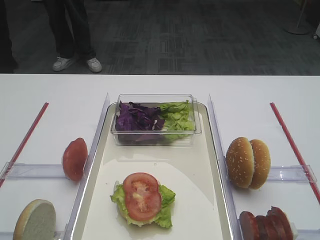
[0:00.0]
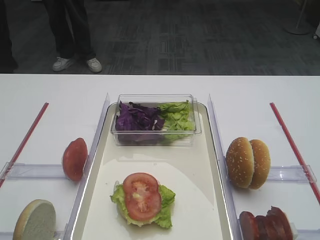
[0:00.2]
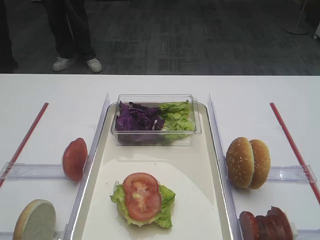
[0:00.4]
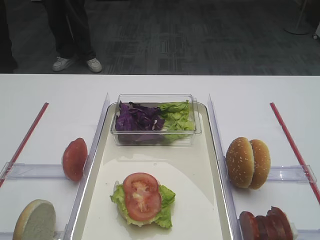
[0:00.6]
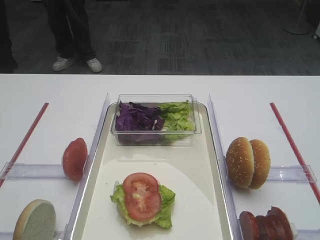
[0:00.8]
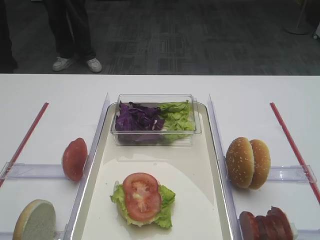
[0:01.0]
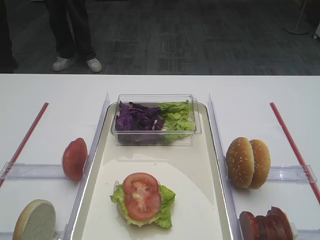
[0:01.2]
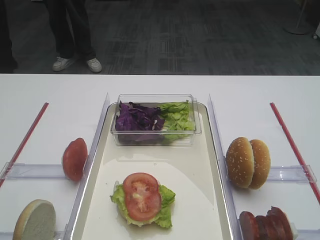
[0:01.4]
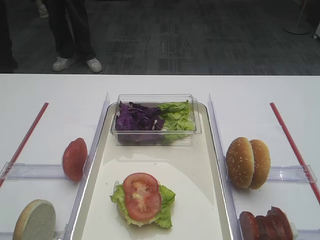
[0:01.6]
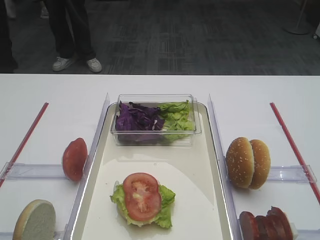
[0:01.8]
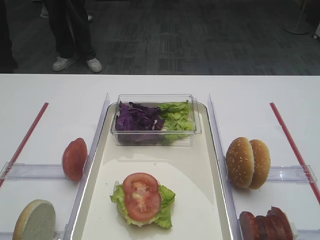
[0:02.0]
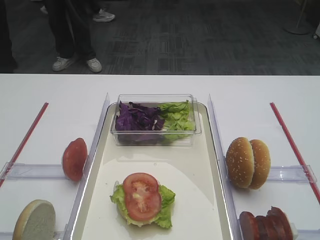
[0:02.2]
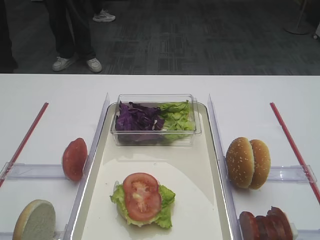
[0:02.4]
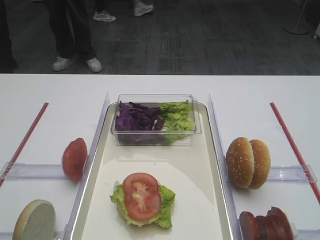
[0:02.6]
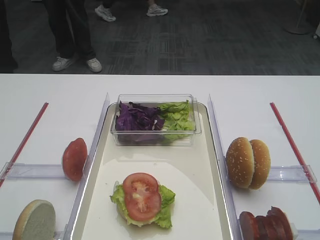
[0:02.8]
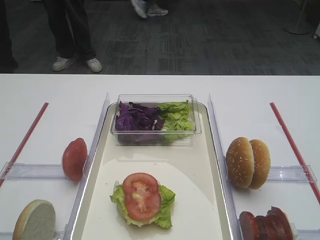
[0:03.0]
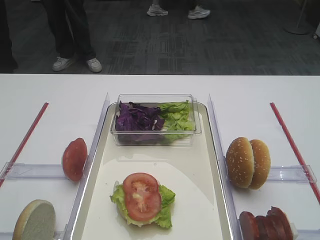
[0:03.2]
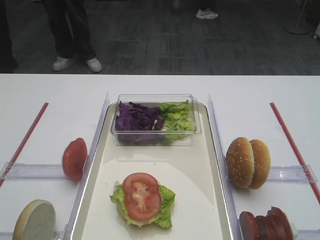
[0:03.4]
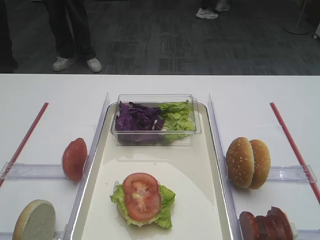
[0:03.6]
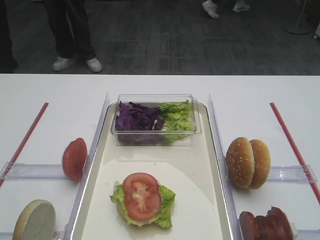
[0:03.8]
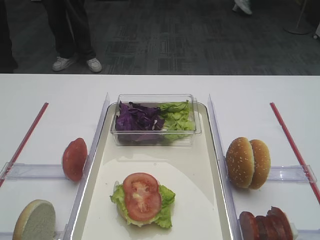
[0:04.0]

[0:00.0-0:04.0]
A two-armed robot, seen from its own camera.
1.4 to 4.0 s: The two grippers keep their place.

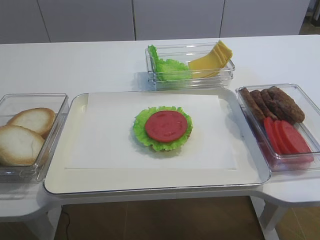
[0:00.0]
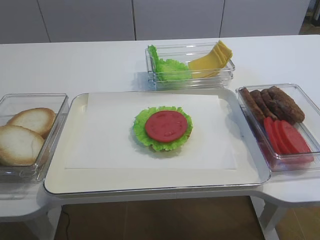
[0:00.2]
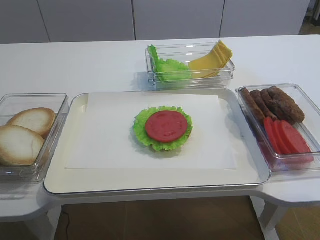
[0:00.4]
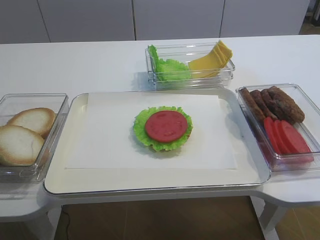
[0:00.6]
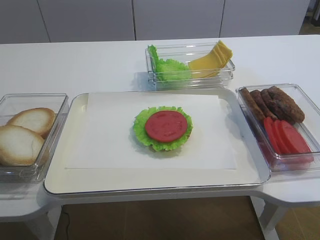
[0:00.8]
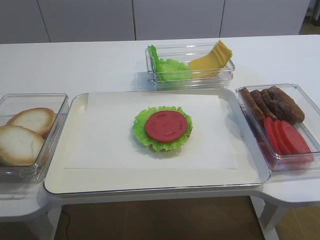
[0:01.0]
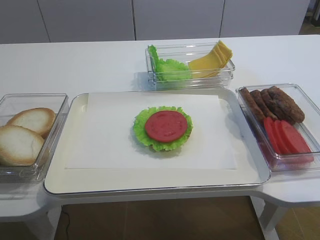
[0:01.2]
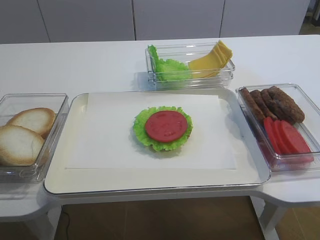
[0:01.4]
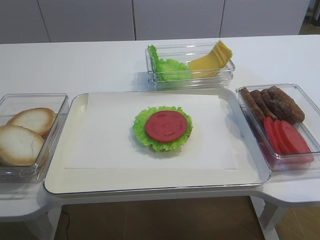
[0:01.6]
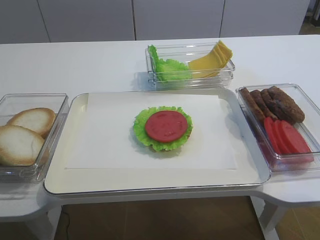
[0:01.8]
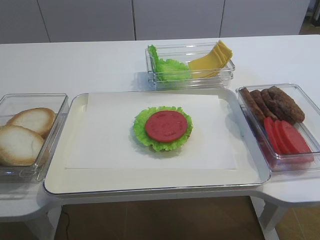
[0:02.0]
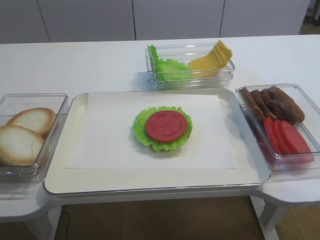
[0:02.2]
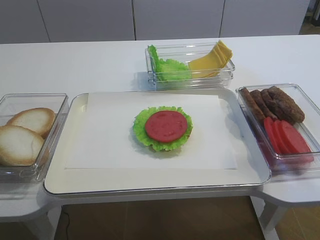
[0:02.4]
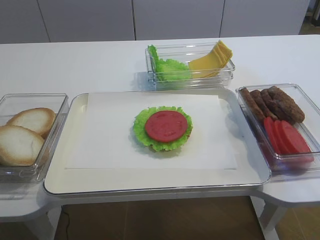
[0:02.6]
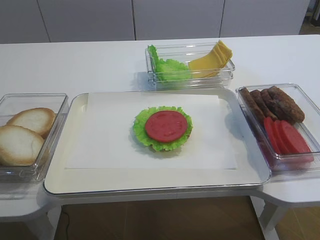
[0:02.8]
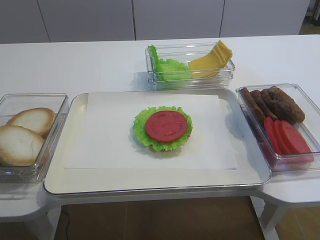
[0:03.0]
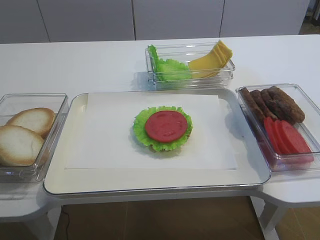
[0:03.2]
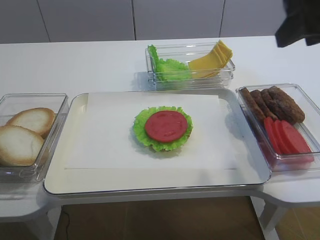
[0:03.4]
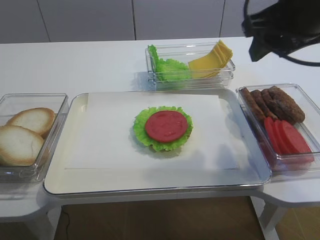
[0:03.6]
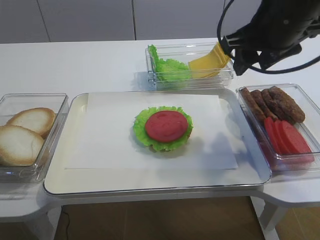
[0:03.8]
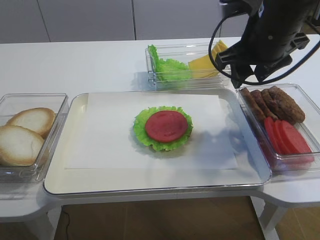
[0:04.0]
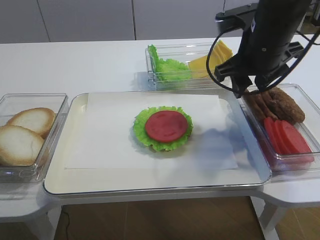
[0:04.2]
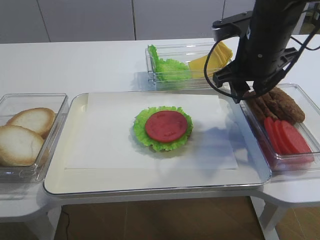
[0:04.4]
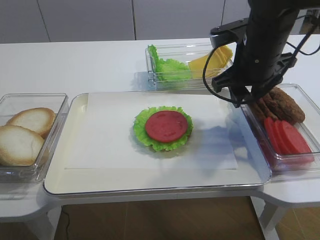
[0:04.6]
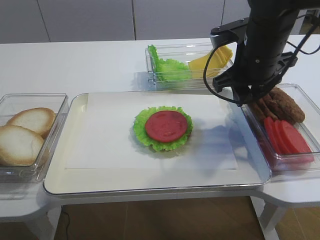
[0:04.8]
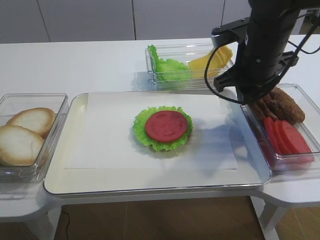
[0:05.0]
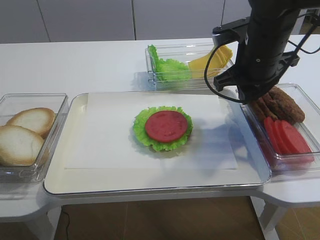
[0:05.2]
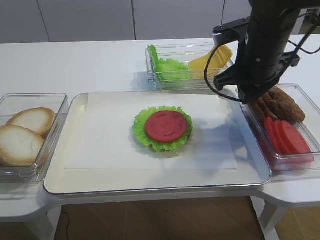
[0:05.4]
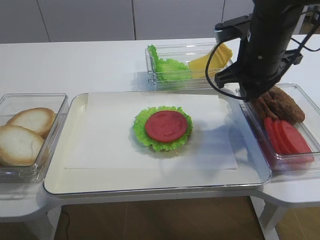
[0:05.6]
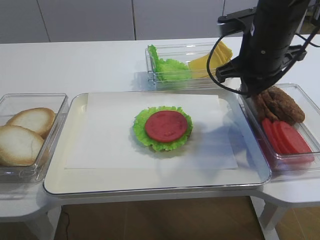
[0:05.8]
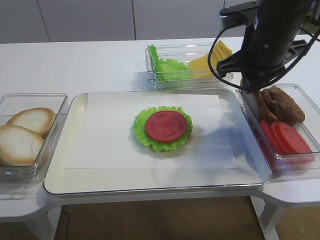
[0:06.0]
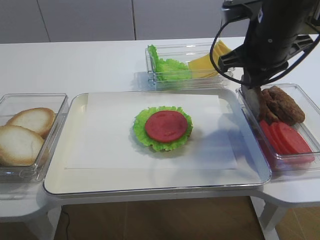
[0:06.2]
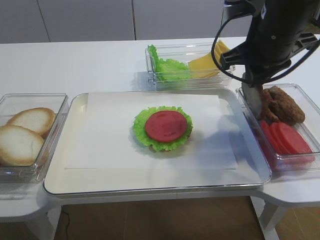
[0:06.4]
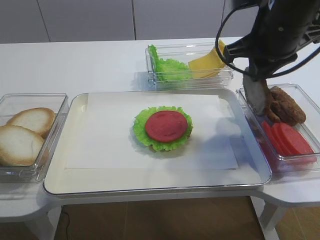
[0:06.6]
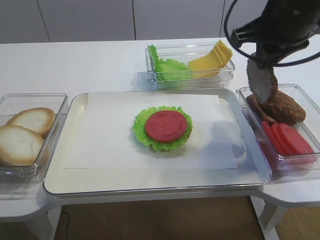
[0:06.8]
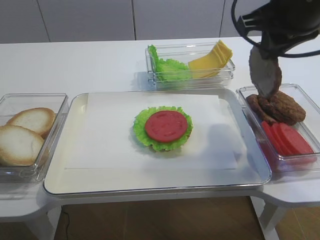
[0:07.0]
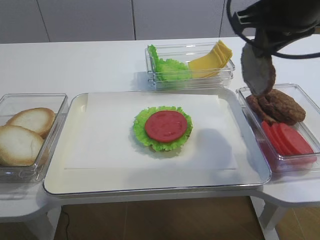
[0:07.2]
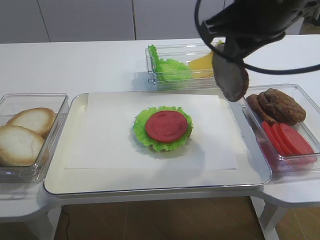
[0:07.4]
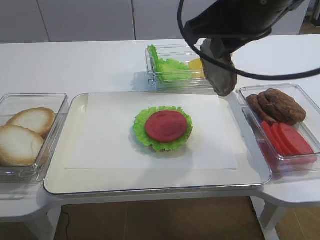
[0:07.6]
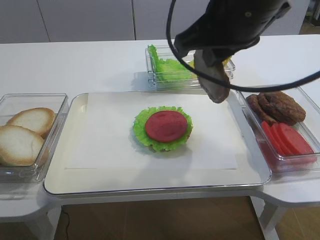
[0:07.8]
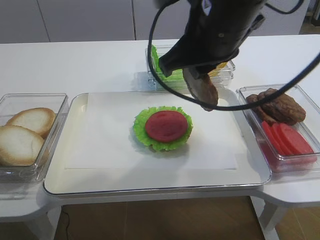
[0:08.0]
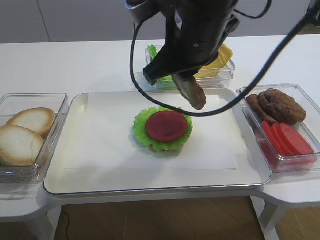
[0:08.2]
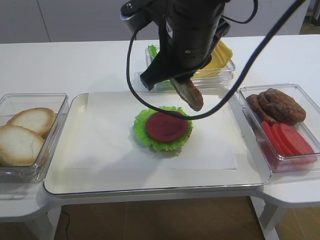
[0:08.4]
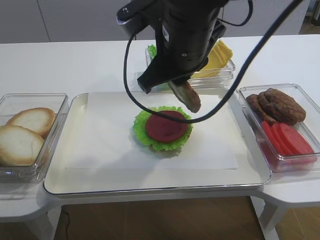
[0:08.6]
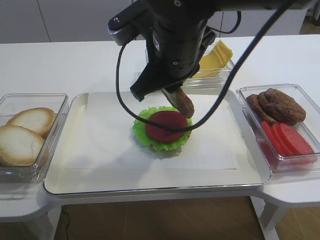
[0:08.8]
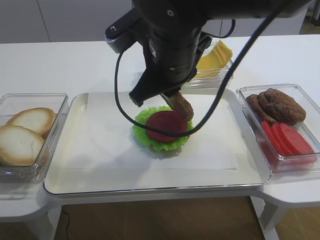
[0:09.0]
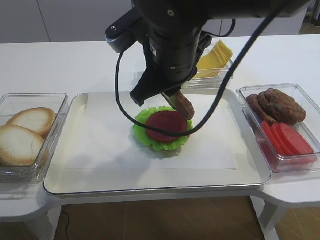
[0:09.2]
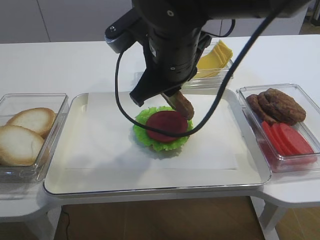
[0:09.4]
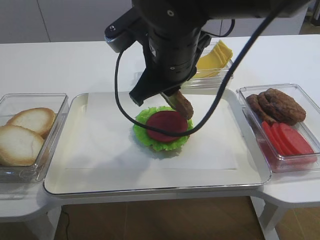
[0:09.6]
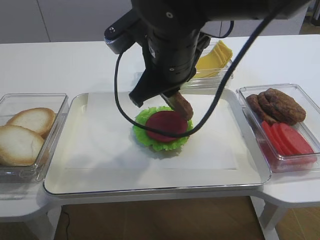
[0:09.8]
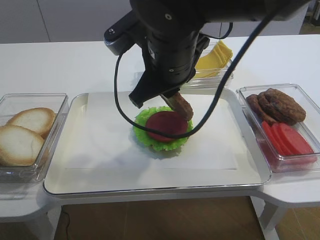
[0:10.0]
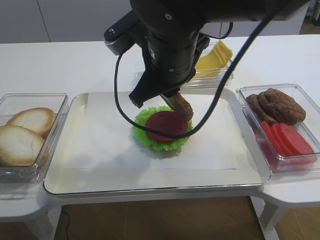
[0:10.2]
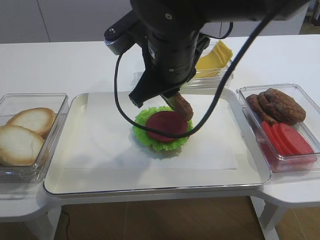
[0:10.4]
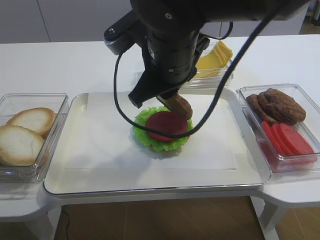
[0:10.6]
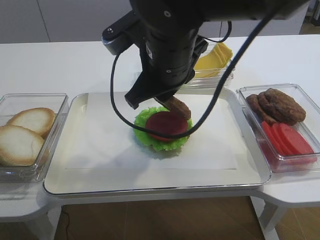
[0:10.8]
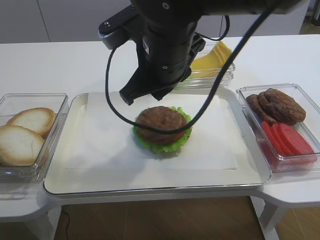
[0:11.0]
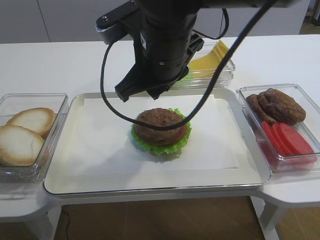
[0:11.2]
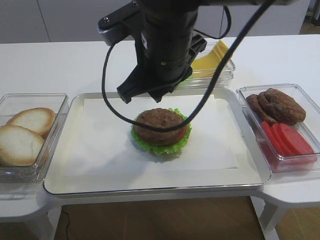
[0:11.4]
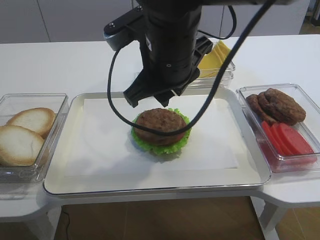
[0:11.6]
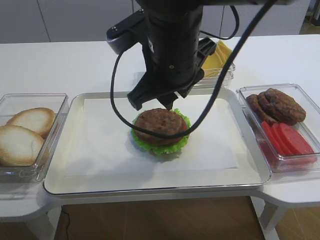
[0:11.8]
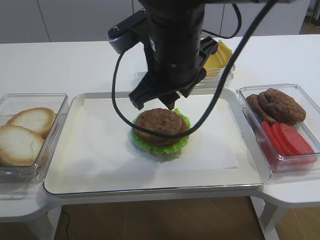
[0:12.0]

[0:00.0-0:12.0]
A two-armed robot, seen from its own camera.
Step, 0.0 to 7.2 s: Pick up the cutlet with the right gripper.
3.0 to 4.4 s: The right gripper goes some 25 cm forward, downward and to the left.
4.4 to 6.0 s: The right gripper closes its fingers.
6.0 to 7.6 s: The right gripper moves upward, backward and to the left, some 15 cm.
7.6 to 9.0 s: The right gripper is displaced to the left and downward by some 10 cm.
9.0 to 10.4 s: Both grippers stay about where they are.
10.4 to 12.0 s: The right gripper opens.

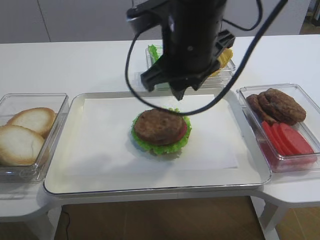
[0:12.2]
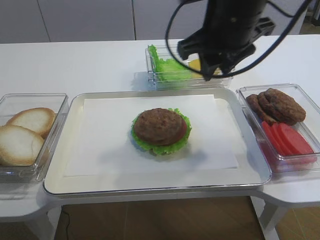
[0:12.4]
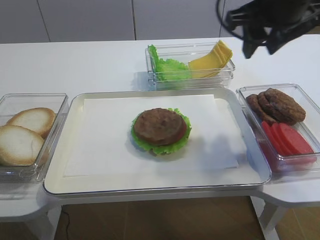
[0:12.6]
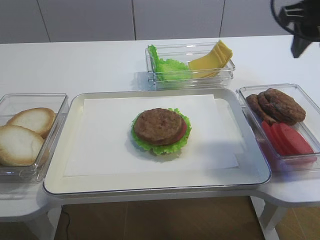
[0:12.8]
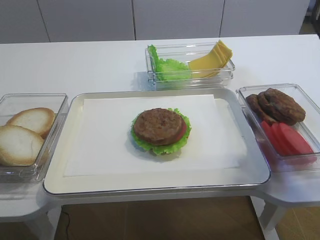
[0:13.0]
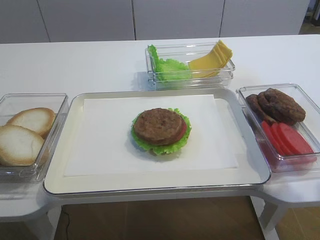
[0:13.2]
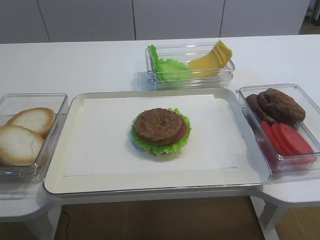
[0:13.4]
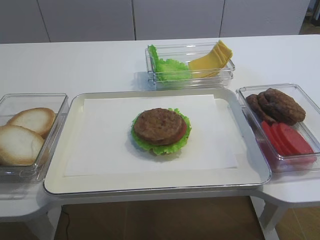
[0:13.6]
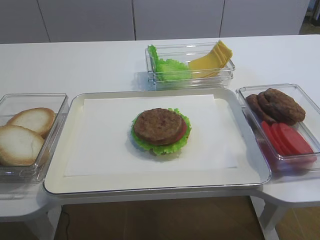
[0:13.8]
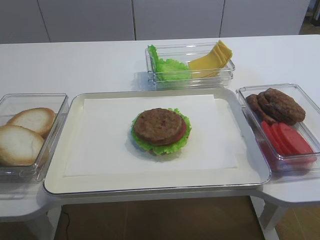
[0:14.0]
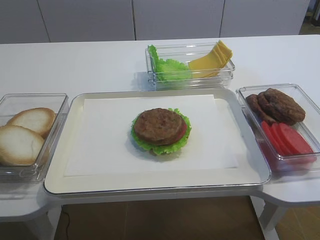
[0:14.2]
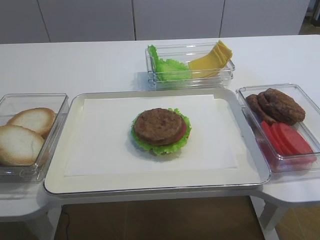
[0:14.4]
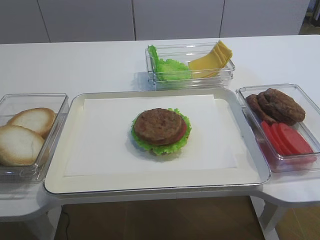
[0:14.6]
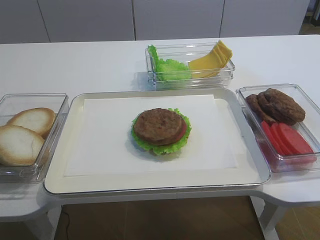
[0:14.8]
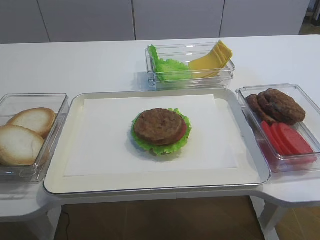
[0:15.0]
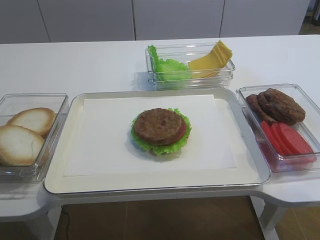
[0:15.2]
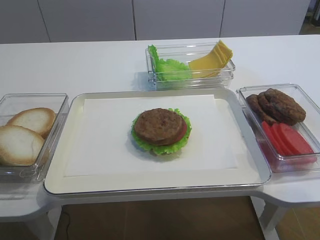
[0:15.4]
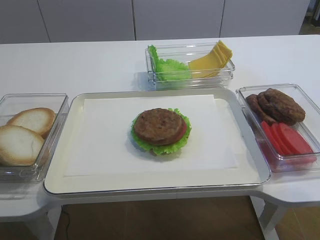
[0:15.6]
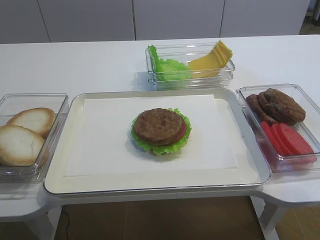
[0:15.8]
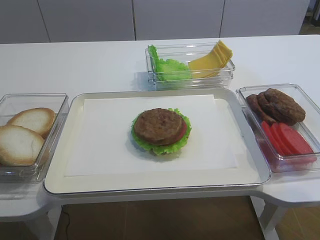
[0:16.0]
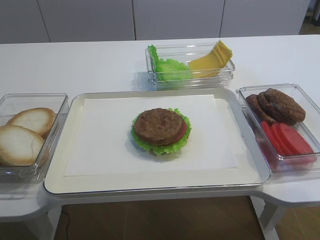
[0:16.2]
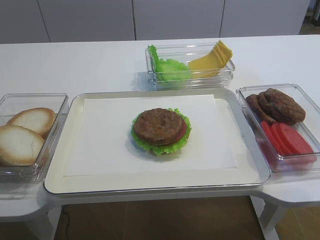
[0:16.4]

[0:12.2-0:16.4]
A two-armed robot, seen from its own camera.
12.2 to 13.6 s: The right gripper is displaced to the right and backward by approximately 30 cm, and opens its fingers.

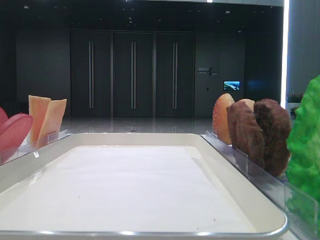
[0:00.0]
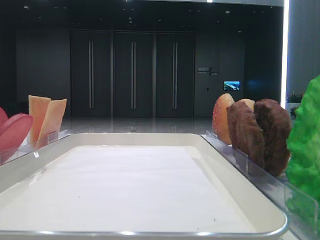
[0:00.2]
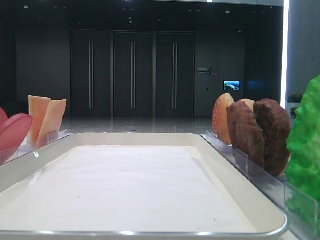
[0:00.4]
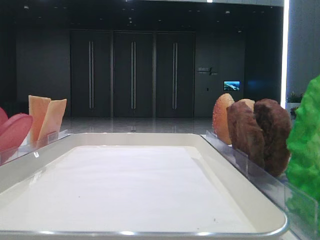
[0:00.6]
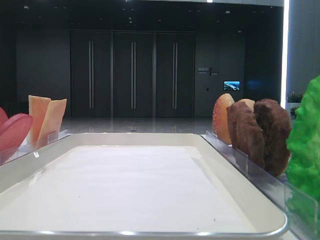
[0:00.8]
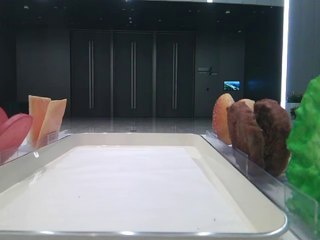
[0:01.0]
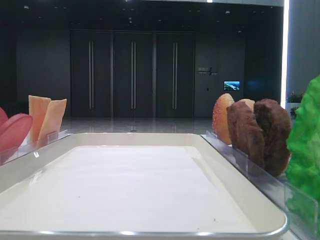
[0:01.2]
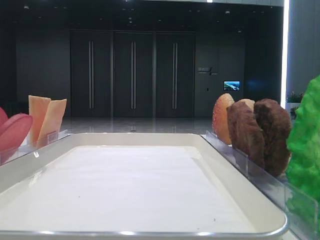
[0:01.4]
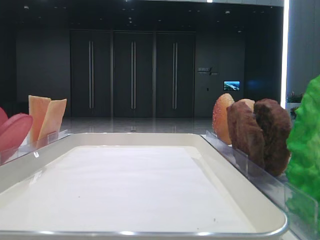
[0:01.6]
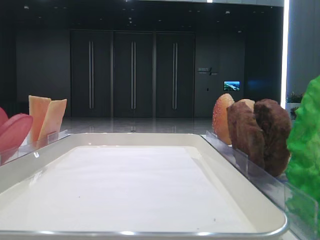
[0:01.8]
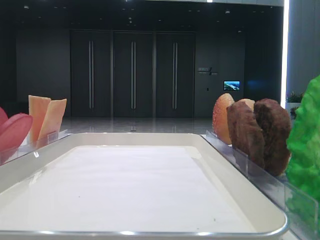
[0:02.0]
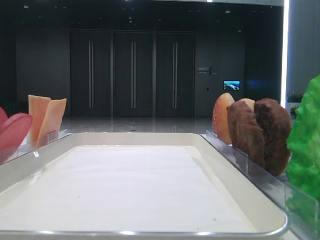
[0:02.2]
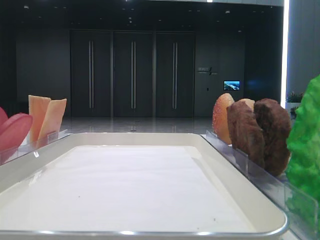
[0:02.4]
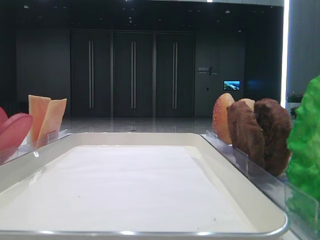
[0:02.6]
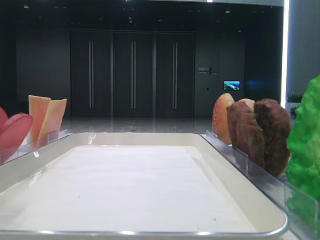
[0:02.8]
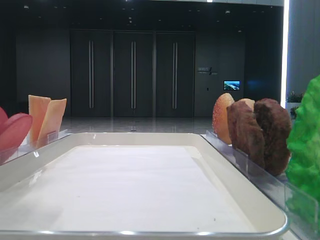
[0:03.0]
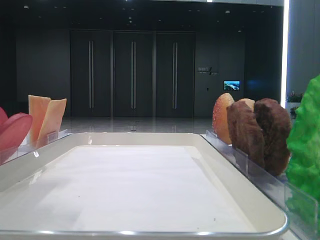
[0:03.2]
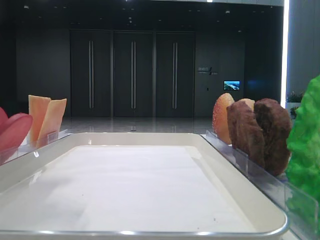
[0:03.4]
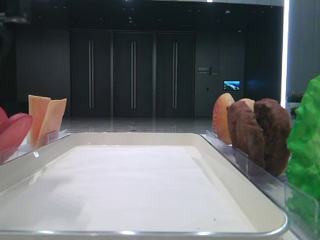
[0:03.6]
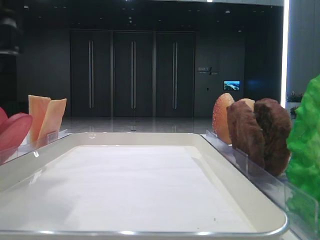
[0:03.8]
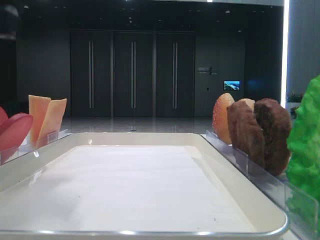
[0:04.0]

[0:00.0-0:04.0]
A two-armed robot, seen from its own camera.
Step, 0.0 to 3.8 s: Pick up the bottom bread with the left hand.
2.6 to 4.0 s: The left gripper shifts some 15 cm to the right and downward, and closes its fingers.
